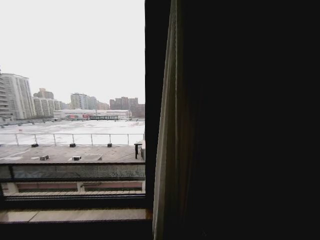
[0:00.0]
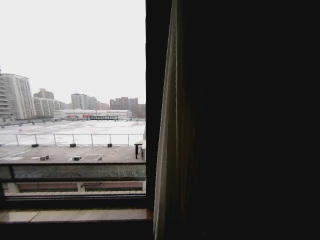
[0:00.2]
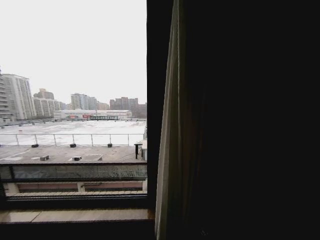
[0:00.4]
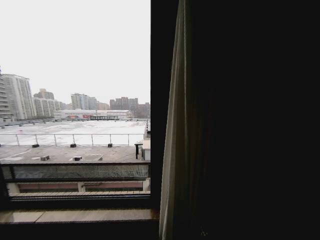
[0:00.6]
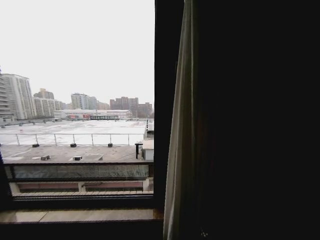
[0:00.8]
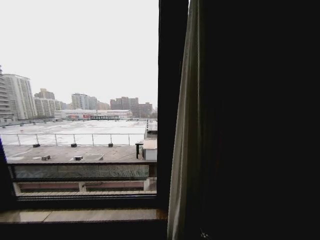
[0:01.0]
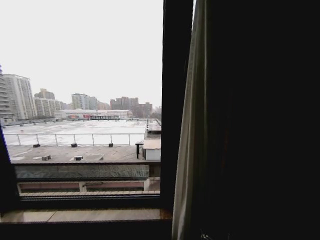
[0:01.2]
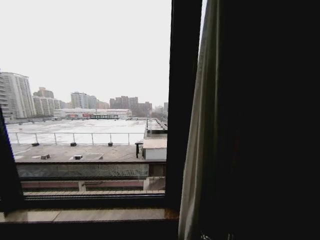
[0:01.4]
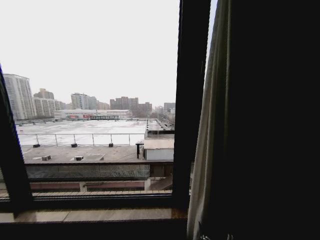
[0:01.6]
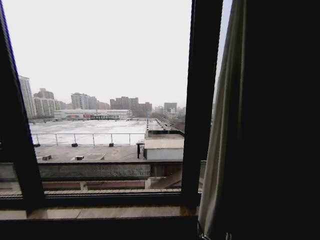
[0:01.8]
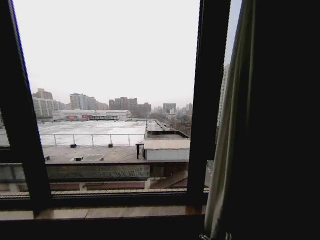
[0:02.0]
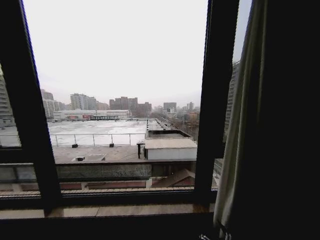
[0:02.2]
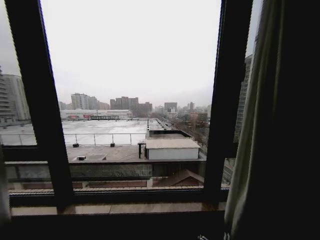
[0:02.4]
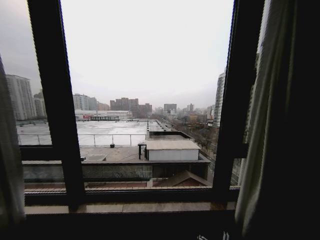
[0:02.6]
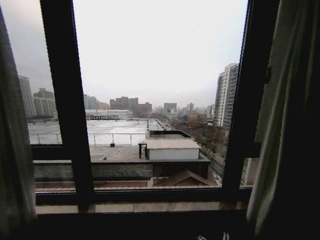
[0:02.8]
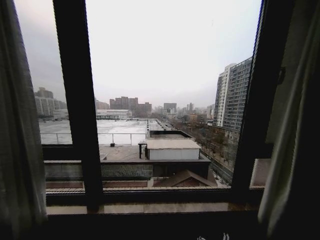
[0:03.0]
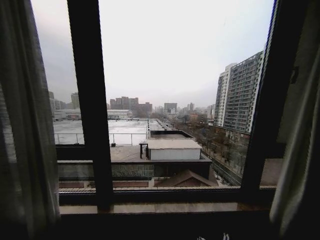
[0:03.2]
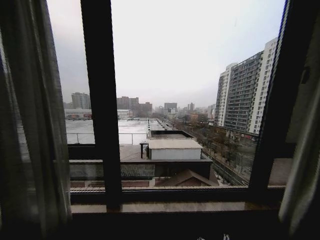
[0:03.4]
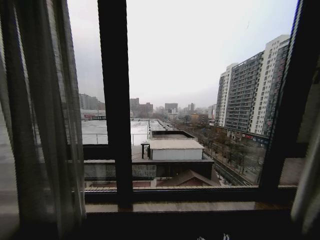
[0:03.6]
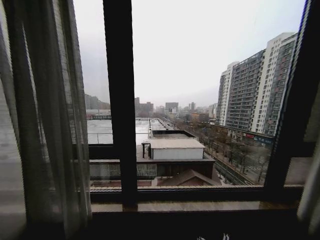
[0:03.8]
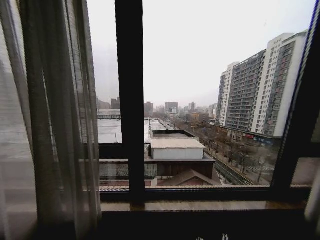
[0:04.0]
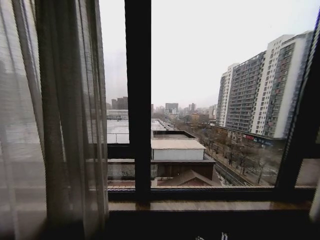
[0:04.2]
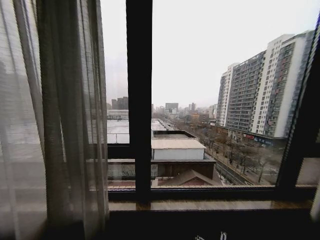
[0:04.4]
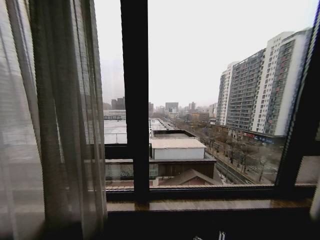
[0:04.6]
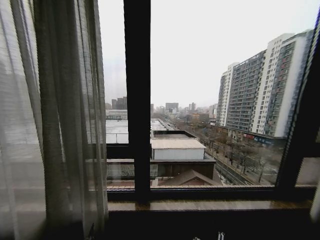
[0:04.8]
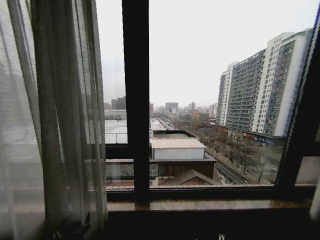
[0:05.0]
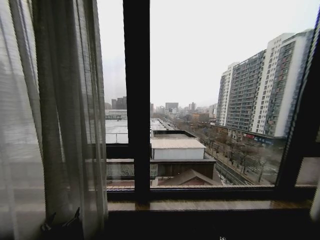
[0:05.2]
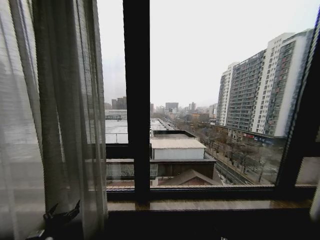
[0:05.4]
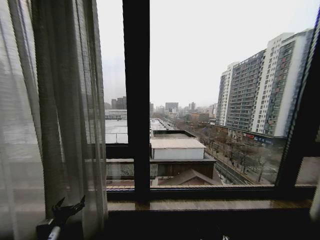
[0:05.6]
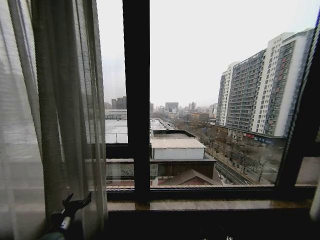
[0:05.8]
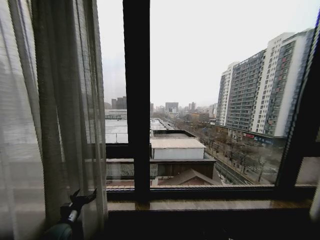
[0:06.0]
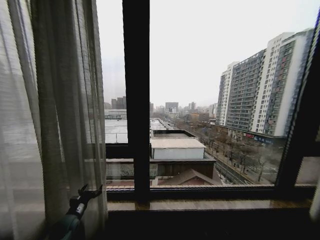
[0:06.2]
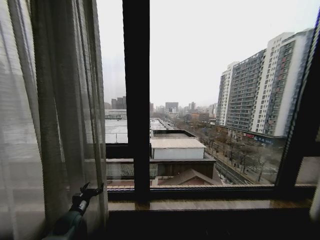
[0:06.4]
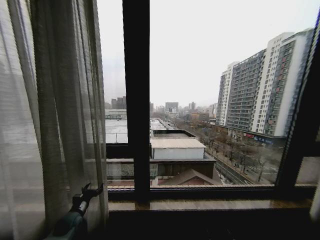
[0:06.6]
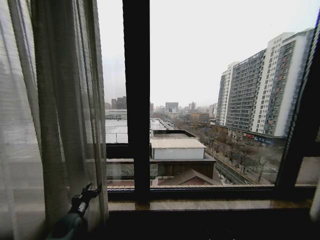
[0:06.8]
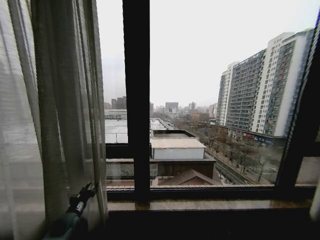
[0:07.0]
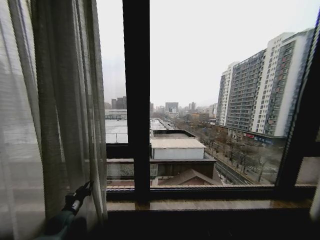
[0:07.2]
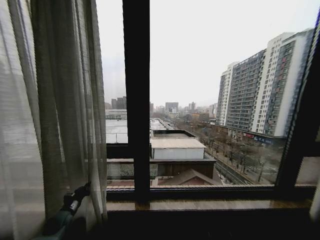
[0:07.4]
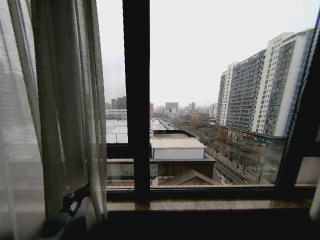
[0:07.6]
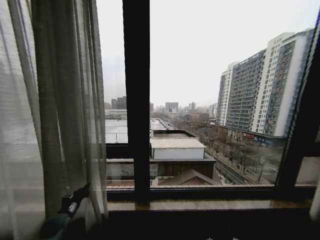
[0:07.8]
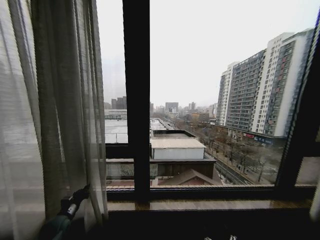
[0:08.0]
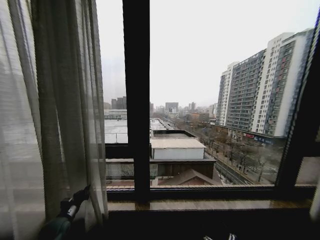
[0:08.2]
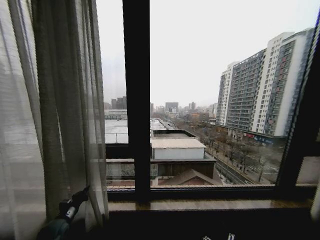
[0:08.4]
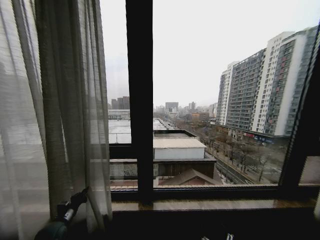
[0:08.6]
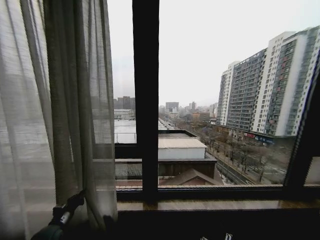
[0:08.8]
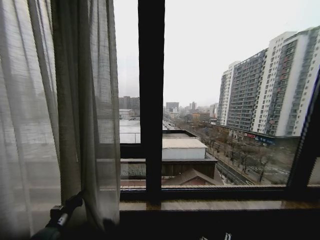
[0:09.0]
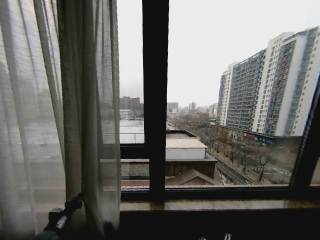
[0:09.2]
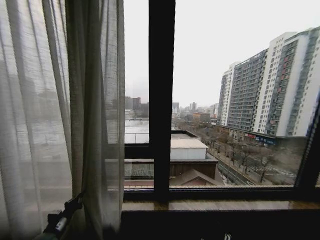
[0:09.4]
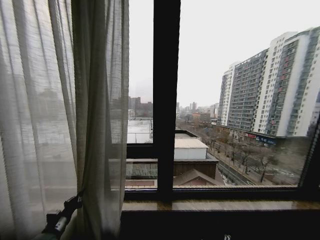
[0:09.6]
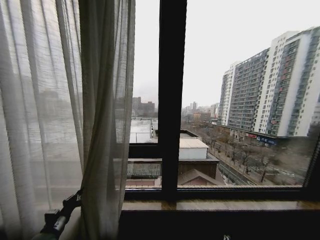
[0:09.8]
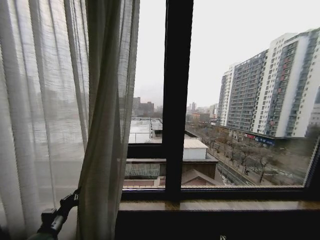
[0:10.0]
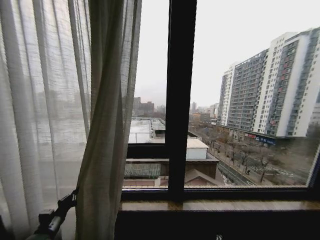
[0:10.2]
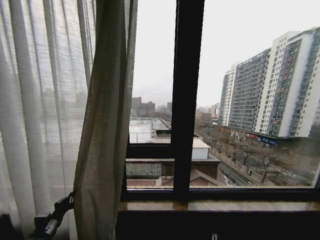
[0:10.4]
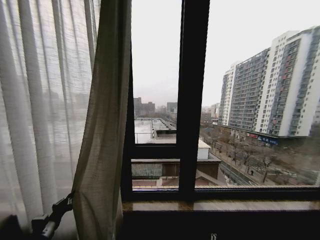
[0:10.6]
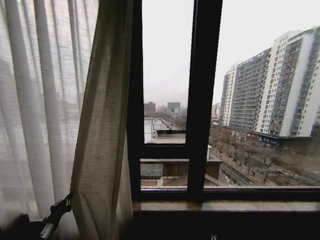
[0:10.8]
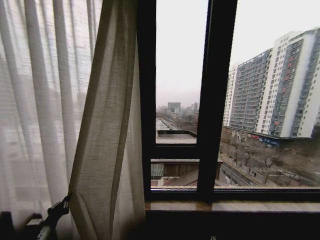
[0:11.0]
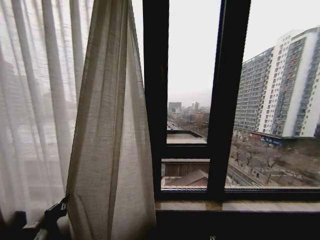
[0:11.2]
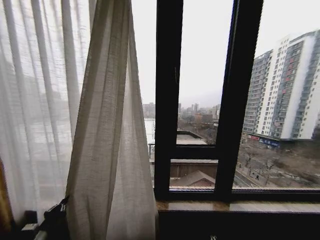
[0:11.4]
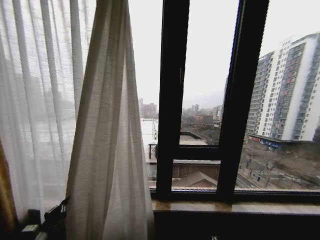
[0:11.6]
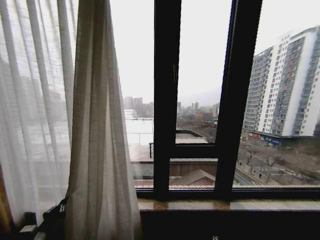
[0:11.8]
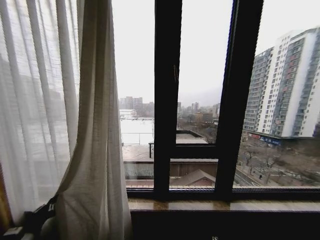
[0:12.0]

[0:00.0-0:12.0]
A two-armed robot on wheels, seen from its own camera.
Task of the whole recording: Open the curtains by pulling them apart, changing their state from closed to fully open.
0:00.0 to 0:01.6: The two grippers keep their place.
0:04.4 to 0:06.0: The left gripper goes some 30 cm forward and to the left. The right gripper shifts roughly 5 cm downward.
0:06.0 to 0:07.6: The left gripper changes place by roughly 5 cm, and closes its fingers.
0:07.6 to 0:09.0: The left gripper goes about 5 cm backward.
0:09.0 to 0:10.4: The left gripper moves backward, about 5 cm.
0:10.4 to 0:12.0: The left gripper moves backward, approximately 5 cm.

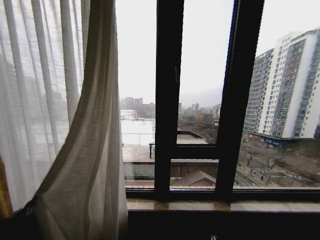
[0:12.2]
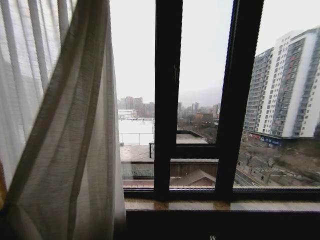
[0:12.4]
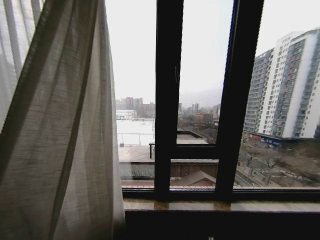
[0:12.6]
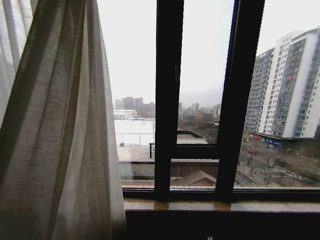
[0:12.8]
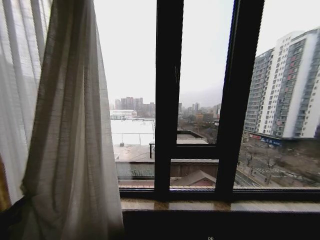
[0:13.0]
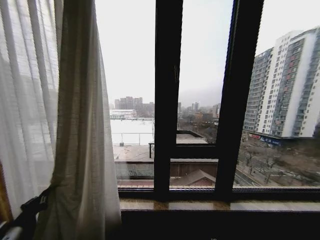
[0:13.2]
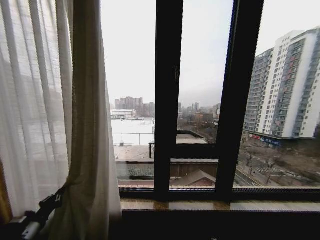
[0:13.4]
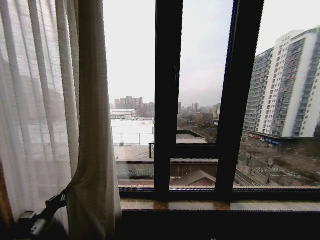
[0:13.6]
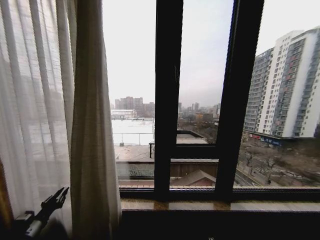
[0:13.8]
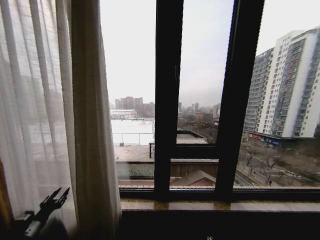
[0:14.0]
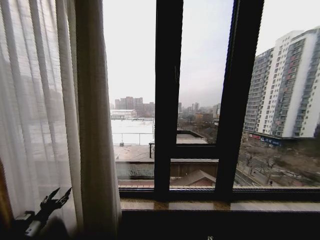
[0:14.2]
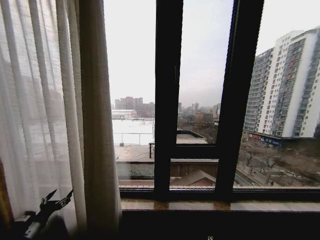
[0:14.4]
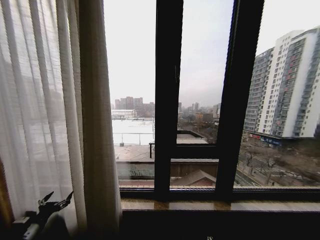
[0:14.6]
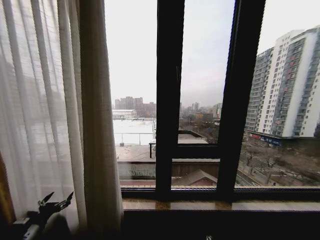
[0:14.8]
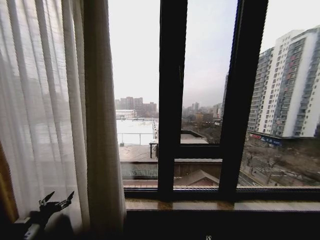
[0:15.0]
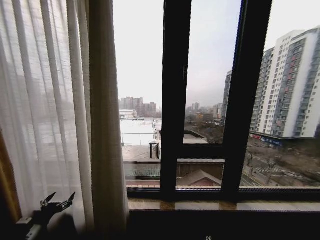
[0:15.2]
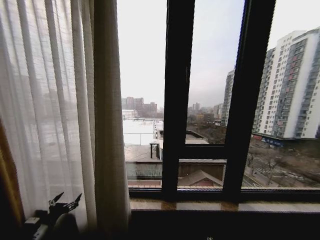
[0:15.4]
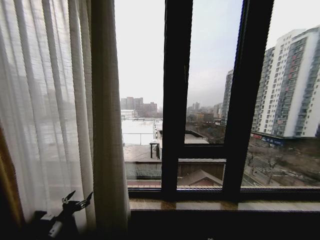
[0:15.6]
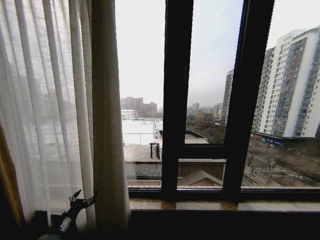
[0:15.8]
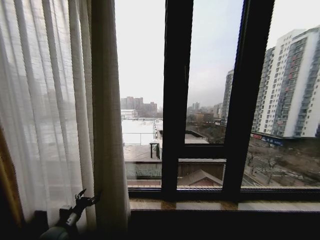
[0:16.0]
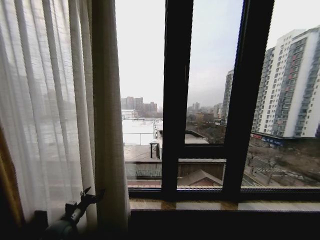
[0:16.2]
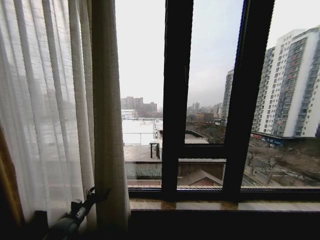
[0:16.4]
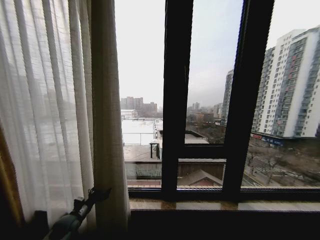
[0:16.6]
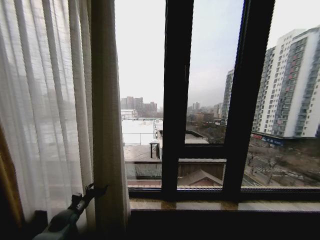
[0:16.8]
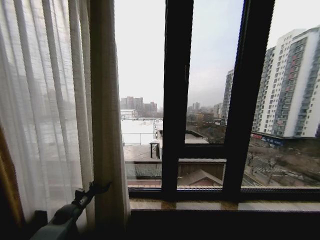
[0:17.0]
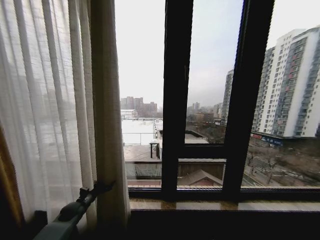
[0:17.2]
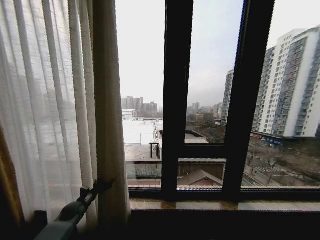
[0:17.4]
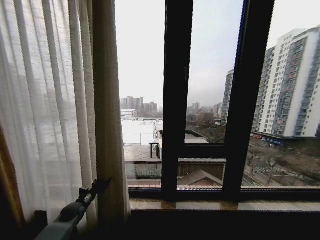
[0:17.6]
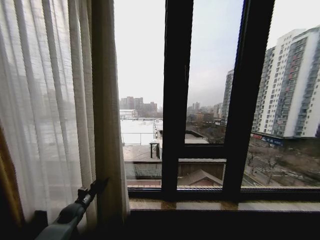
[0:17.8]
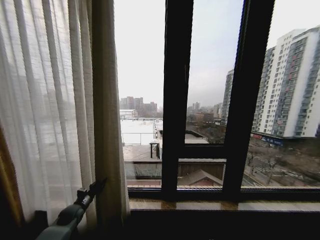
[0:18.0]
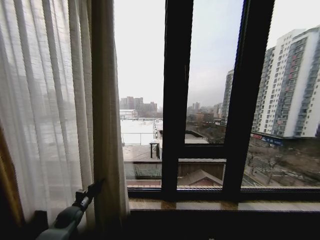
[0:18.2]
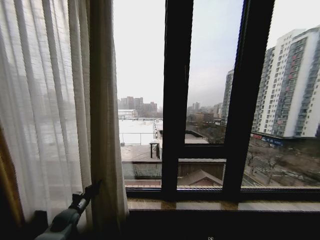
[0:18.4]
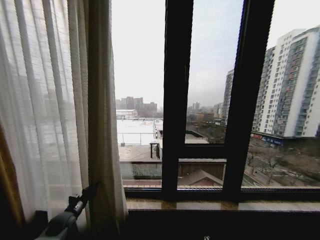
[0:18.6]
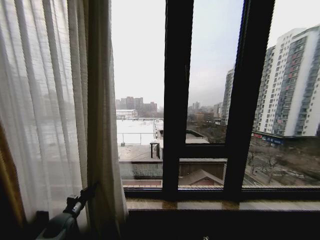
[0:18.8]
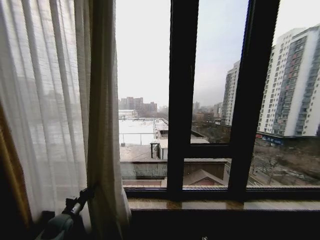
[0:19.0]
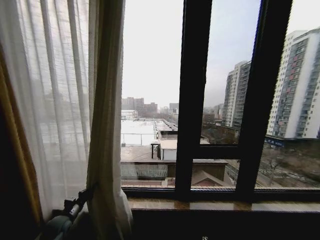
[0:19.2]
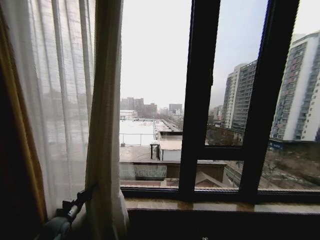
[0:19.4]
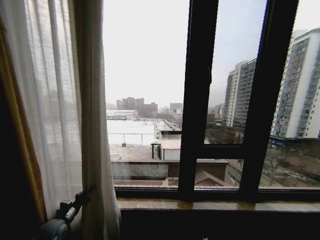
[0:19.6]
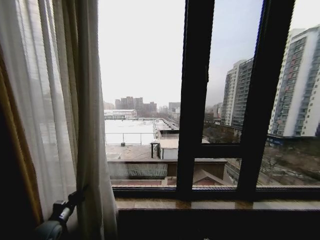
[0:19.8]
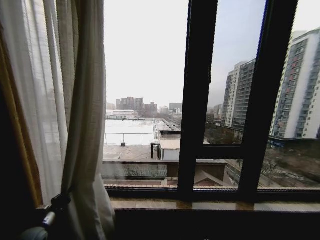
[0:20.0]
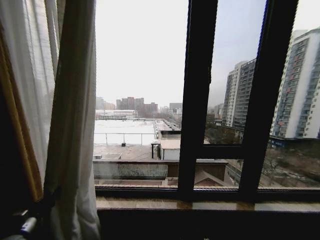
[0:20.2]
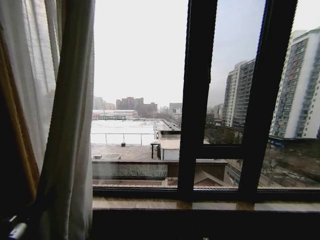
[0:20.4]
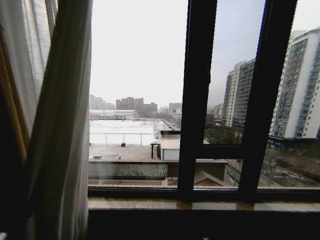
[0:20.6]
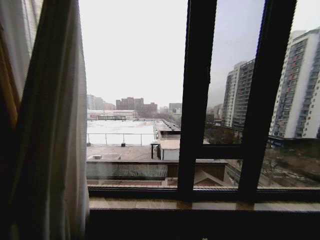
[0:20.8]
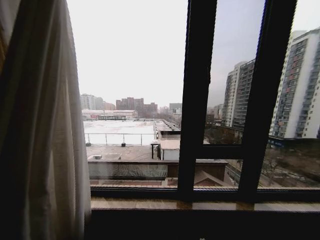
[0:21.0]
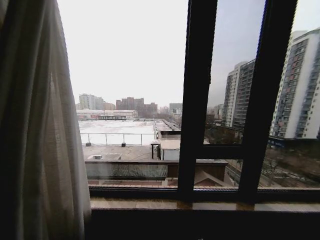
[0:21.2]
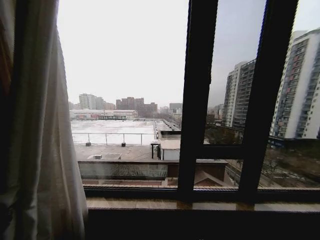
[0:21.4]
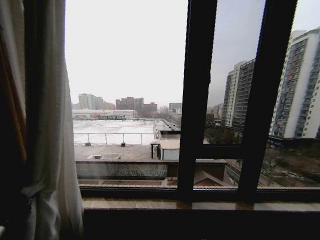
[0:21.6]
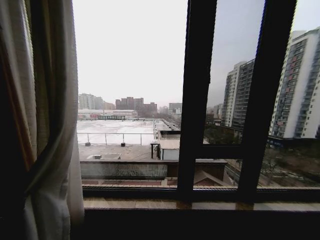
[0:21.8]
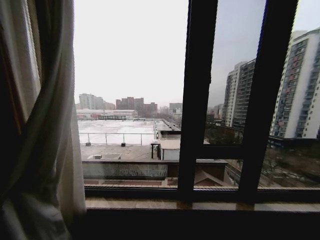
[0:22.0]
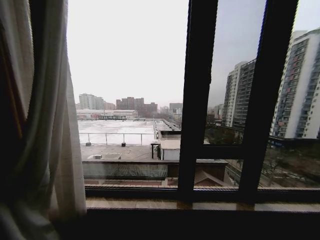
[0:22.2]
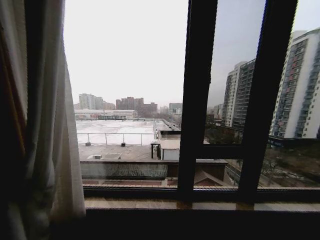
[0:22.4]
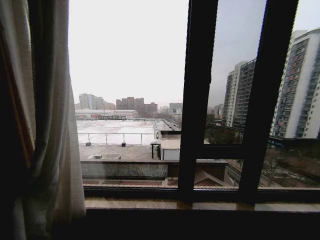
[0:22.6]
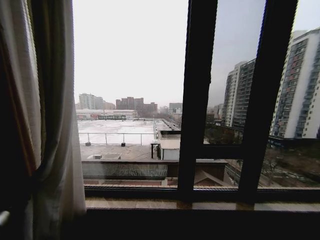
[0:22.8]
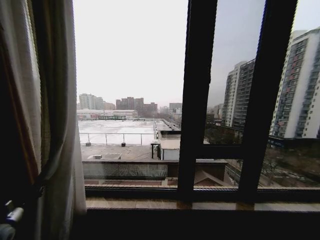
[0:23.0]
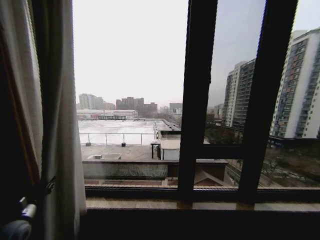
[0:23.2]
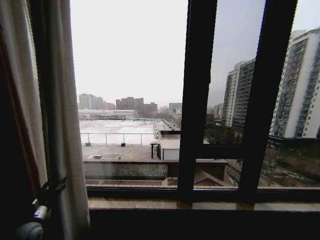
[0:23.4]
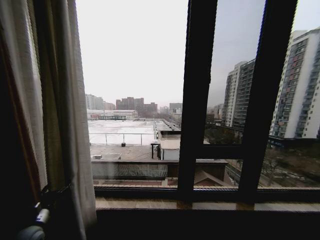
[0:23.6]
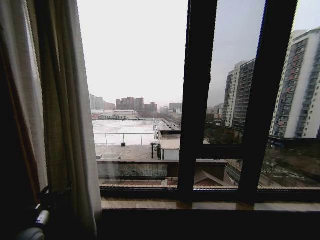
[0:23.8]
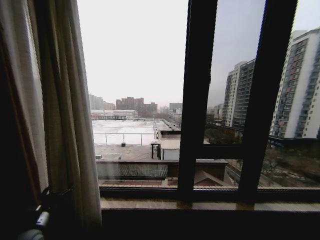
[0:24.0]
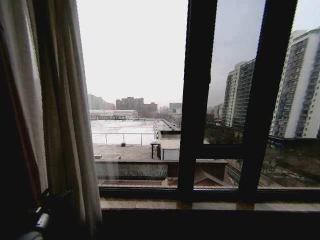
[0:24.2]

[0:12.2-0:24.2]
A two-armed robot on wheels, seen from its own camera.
Task of the whole recording: Open the curtains by pulling them apart, changing their state from closed to fully open.
0:12.2 to 0:13.8: The left gripper shifts approximately 10 cm forward.
0:13.8 to 0:15.2: The left gripper opens.
0:15.2 to 0:16.6: The left gripper goes some 15 cm forward and to the right.
0:16.6 to 0:18.2: The left gripper closes its fingers.
0:18.2 to 0:19.8: The left gripper shifts some 5 cm backward.
0:19.8 to 0:21.2: The left gripper moves backward and to the left, some 30 cm.
0:21.2 to 0:22.6: The left gripper swings left and right, about 10 cm each way, with 2 reversals.
0:22.6 to 0:24.2: The left gripper travels to the right by approximately 20 cm, and opens up.
